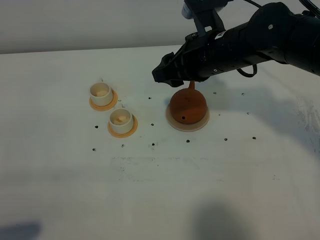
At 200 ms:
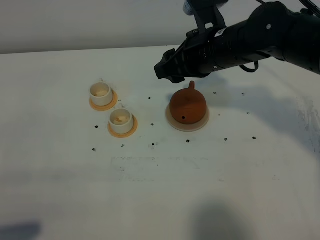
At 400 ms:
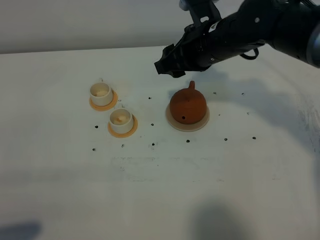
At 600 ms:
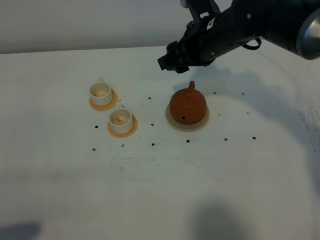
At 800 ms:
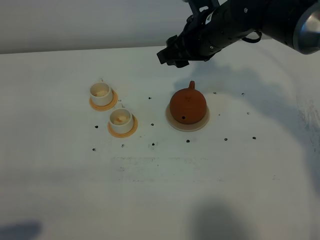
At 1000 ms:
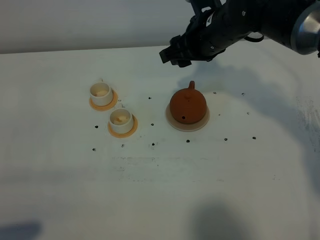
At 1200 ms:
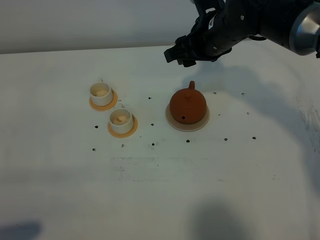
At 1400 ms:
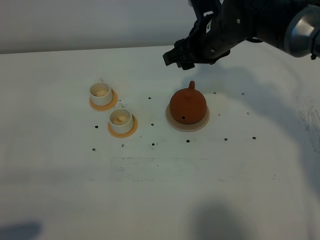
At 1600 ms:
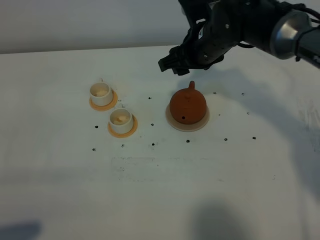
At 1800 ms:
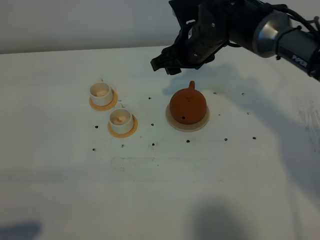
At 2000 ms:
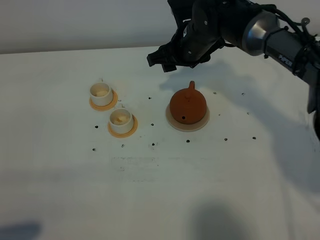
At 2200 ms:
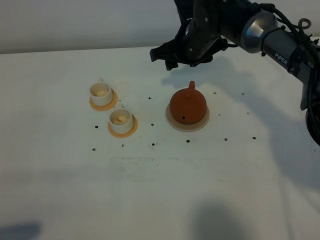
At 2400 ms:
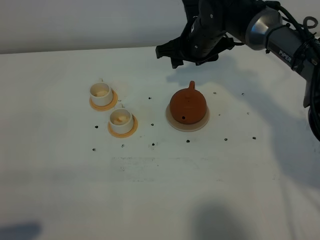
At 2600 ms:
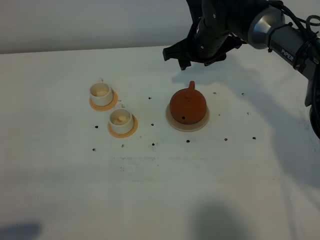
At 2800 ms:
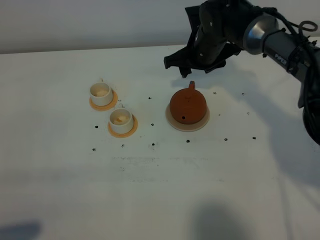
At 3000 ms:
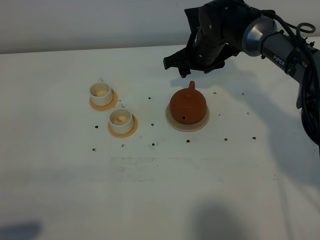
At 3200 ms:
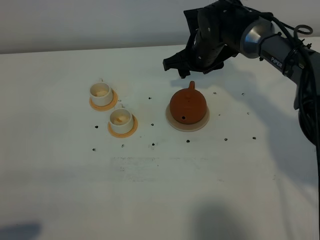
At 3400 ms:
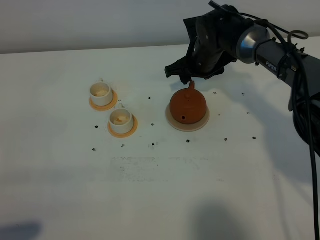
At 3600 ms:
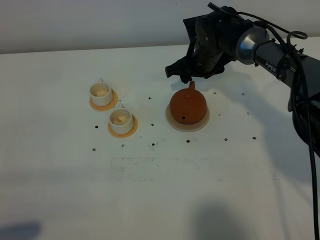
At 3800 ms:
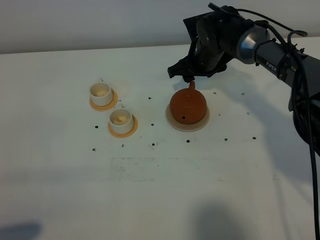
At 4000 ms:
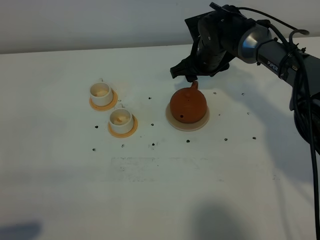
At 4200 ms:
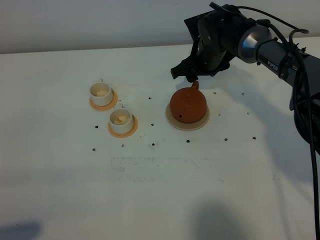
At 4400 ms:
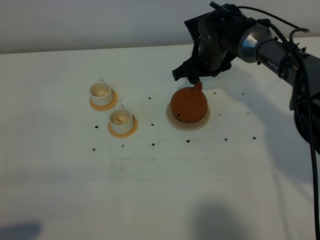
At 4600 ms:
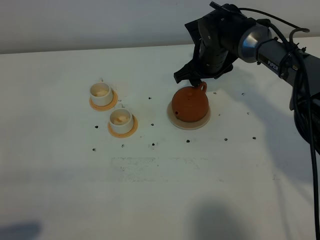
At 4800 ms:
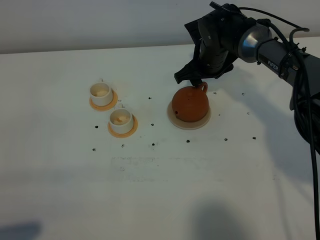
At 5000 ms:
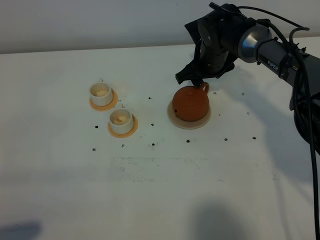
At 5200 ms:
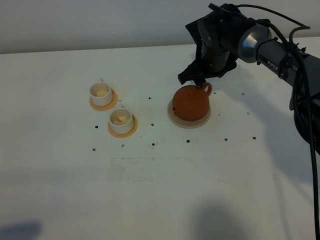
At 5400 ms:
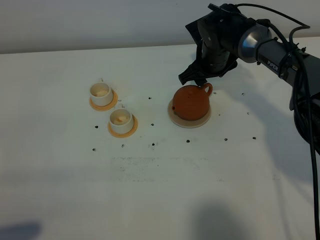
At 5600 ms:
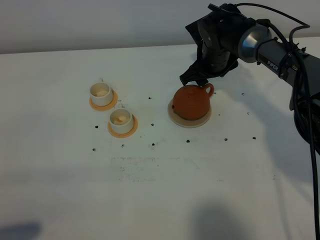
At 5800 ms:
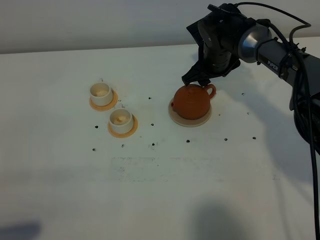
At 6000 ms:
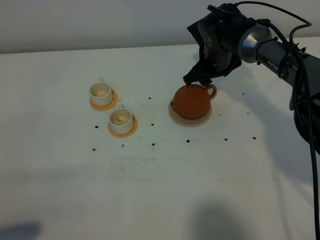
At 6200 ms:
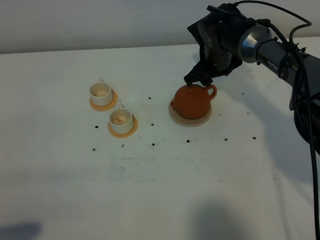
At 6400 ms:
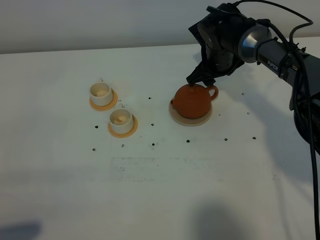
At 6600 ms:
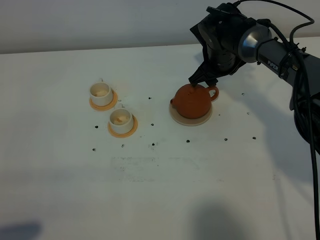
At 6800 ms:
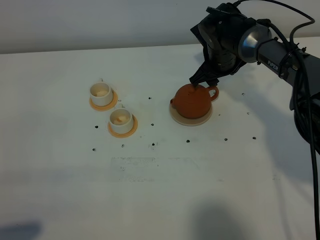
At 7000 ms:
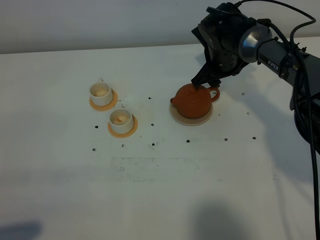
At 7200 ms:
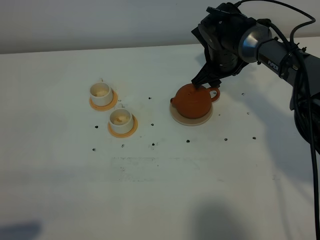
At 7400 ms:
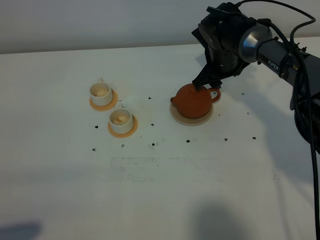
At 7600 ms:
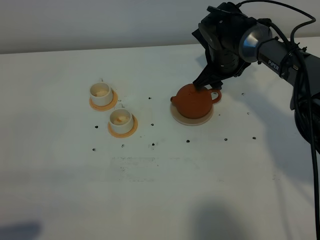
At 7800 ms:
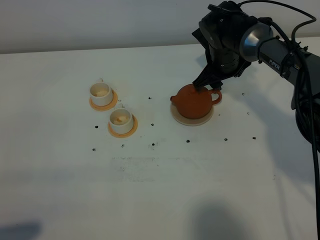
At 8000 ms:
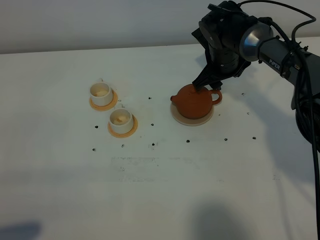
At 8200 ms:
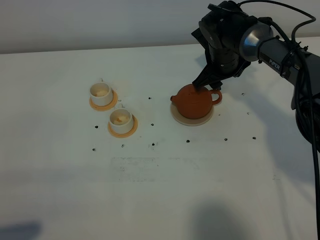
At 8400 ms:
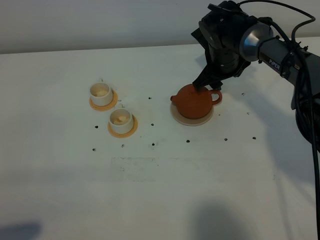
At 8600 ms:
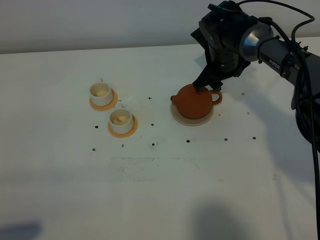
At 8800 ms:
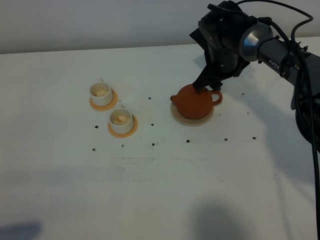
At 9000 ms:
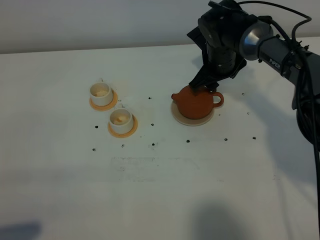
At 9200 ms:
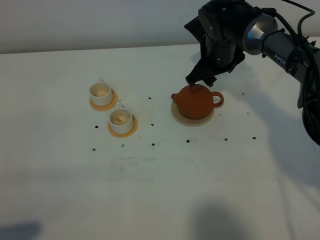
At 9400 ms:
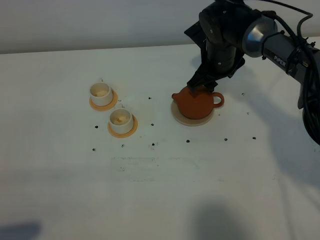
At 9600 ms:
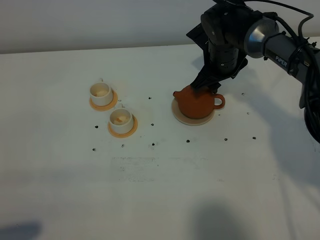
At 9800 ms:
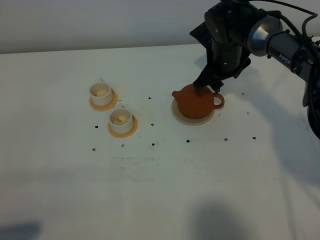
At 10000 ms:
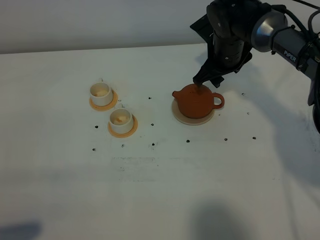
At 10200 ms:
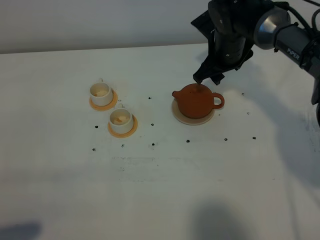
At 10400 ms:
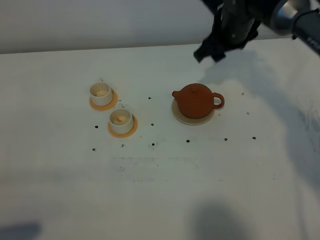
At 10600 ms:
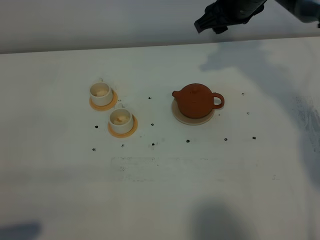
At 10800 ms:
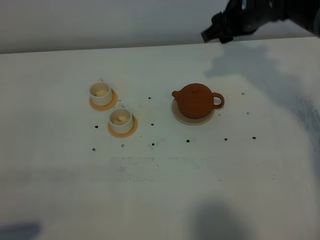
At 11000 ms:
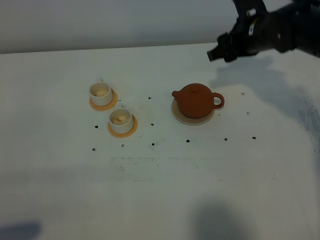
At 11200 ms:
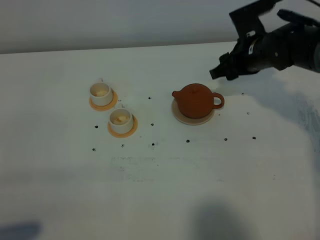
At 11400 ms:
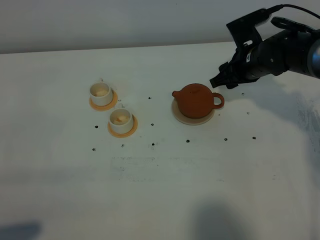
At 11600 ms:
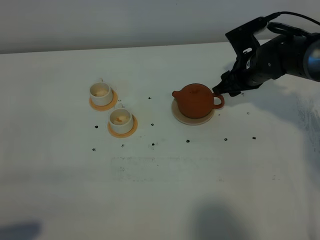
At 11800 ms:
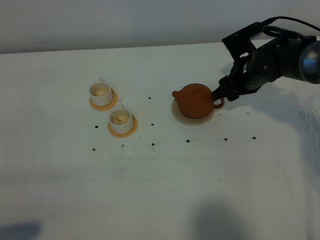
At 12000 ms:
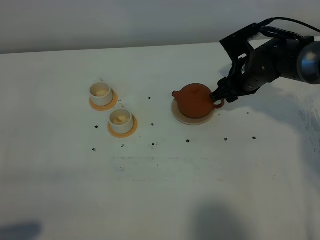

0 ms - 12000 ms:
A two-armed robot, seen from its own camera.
Task of the whole recording: grasp the brown teapot and pour the tea into the two white teacups one by one, put the brown teapot back in its original place.
0 ms - 1600 ms: The right gripper shifts some 5 cm forward.
1600 ms - 3000 ms: The right gripper is displaced forward by approximately 5 cm.
3000 ms - 4400 ms: The grippers stay close to where they were, moving slightly.
4400 ms - 9000 ms: The grippers stay close to where they were, moving slightly.
9000 ms - 10400 ms: The right gripper is displaced upward by roughly 10 cm.
10400 ms - 12000 ms: The right gripper moves downward, some 10 cm.

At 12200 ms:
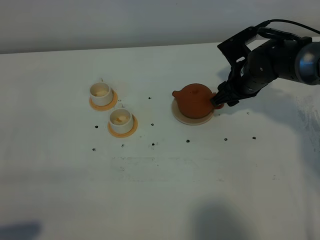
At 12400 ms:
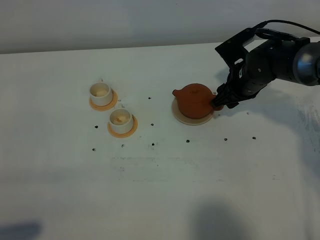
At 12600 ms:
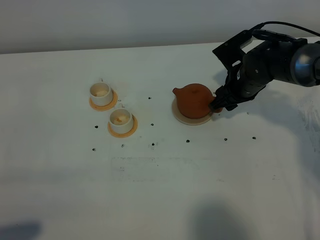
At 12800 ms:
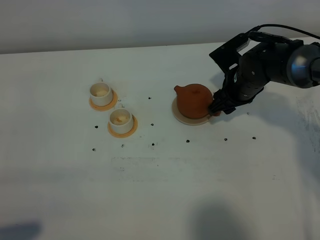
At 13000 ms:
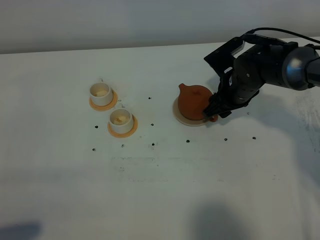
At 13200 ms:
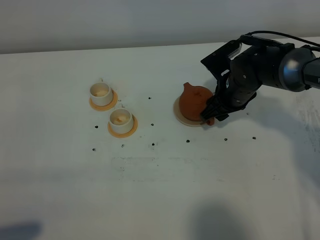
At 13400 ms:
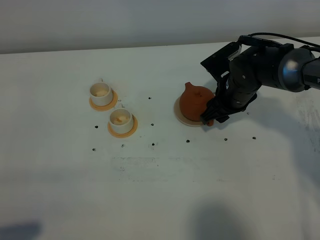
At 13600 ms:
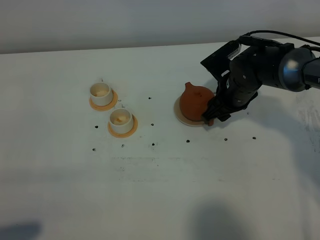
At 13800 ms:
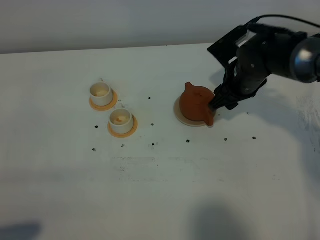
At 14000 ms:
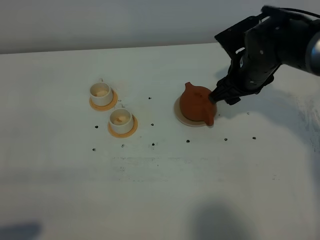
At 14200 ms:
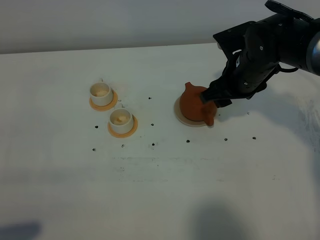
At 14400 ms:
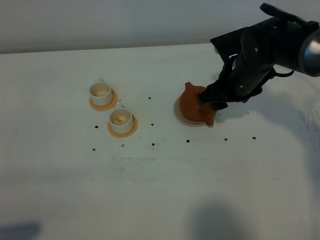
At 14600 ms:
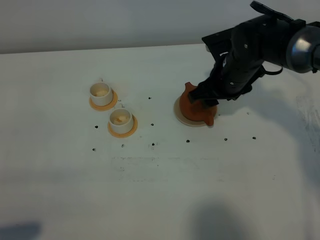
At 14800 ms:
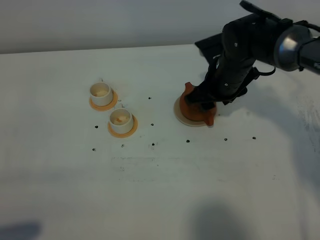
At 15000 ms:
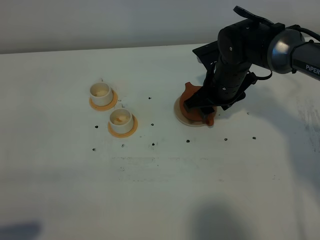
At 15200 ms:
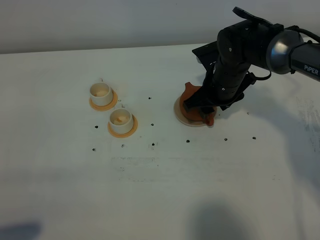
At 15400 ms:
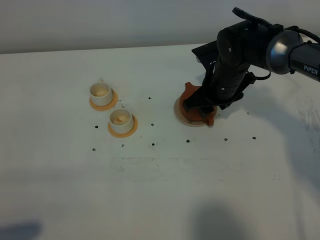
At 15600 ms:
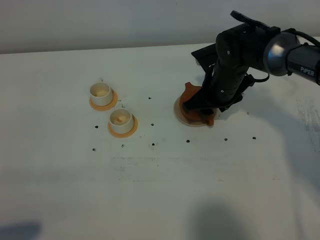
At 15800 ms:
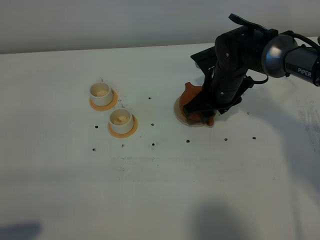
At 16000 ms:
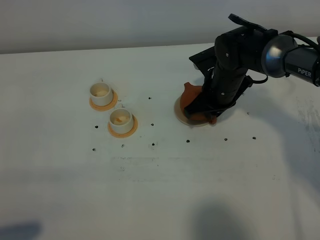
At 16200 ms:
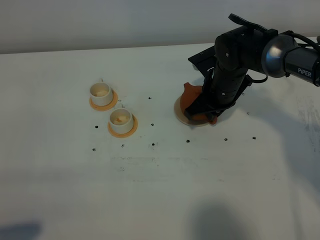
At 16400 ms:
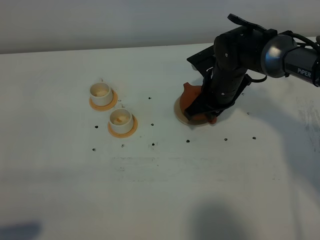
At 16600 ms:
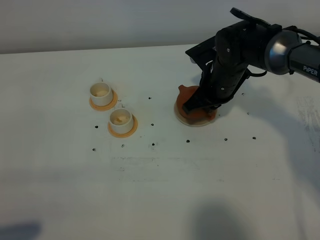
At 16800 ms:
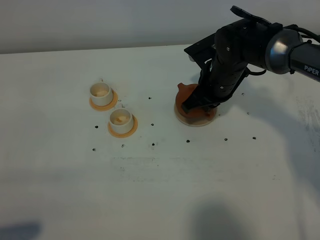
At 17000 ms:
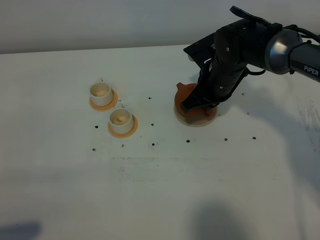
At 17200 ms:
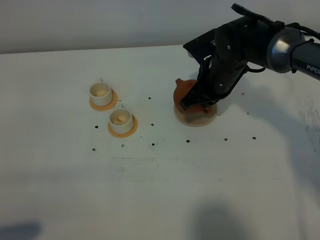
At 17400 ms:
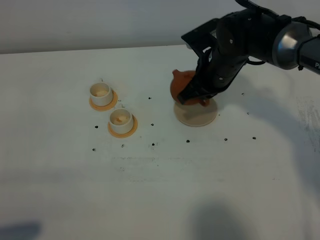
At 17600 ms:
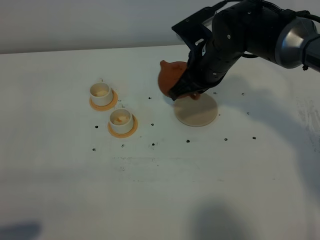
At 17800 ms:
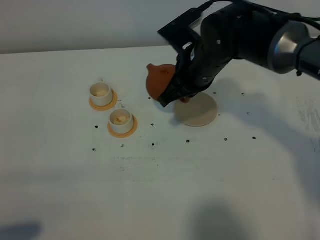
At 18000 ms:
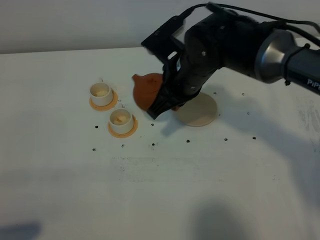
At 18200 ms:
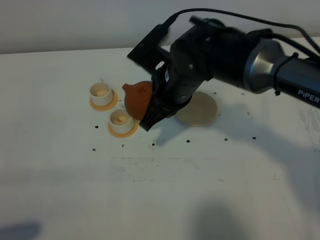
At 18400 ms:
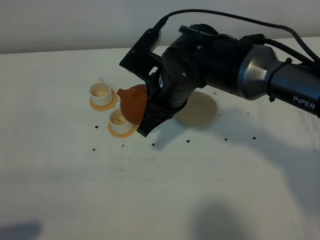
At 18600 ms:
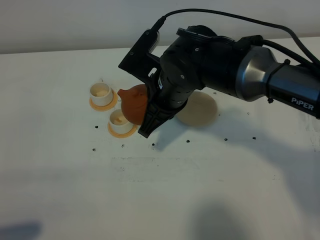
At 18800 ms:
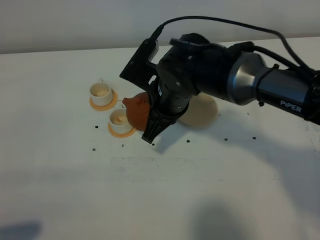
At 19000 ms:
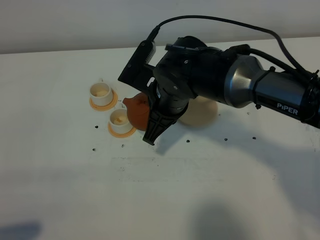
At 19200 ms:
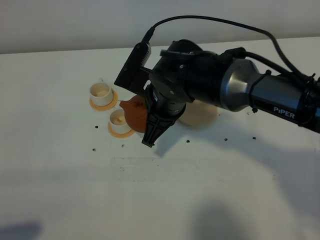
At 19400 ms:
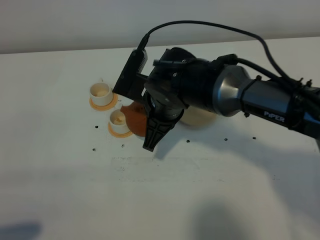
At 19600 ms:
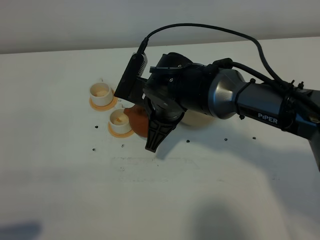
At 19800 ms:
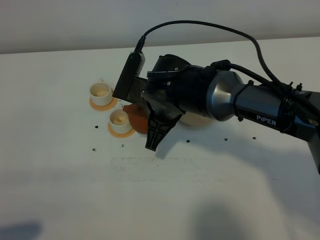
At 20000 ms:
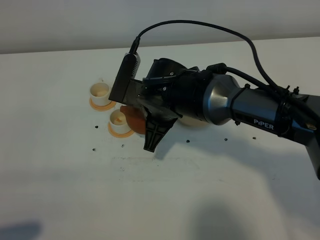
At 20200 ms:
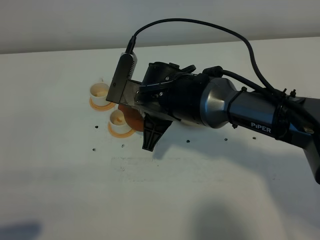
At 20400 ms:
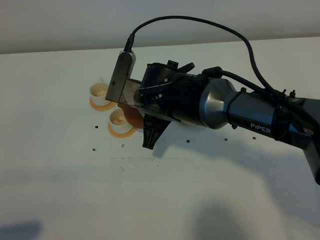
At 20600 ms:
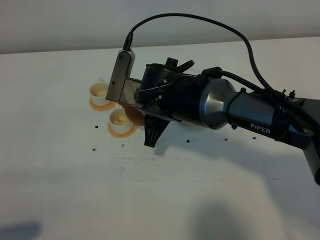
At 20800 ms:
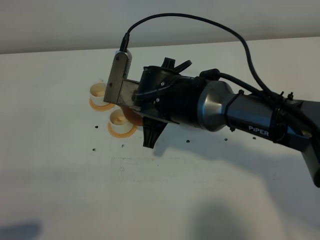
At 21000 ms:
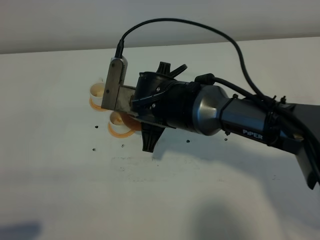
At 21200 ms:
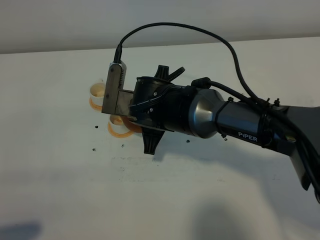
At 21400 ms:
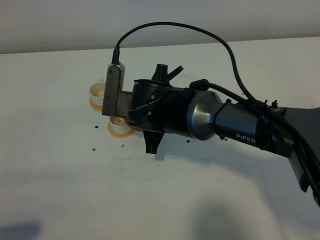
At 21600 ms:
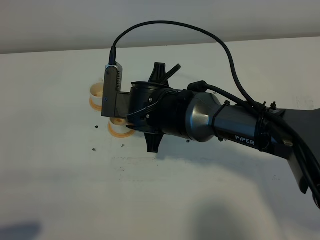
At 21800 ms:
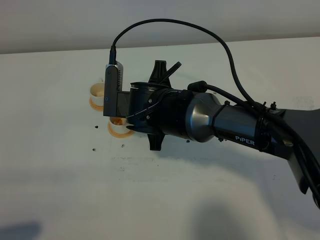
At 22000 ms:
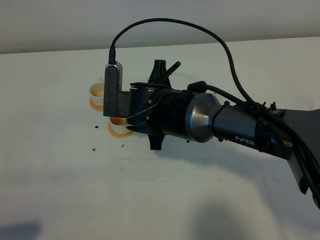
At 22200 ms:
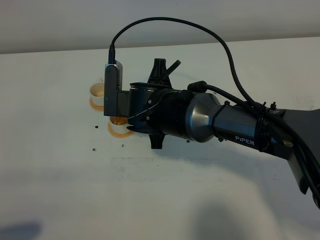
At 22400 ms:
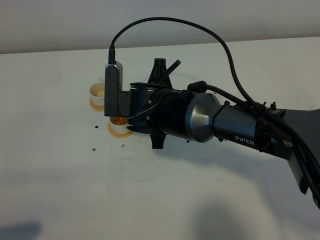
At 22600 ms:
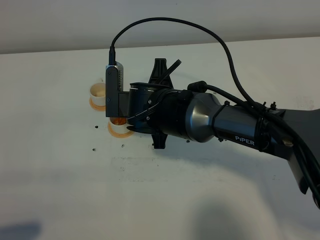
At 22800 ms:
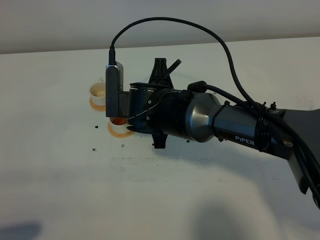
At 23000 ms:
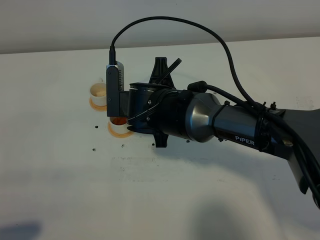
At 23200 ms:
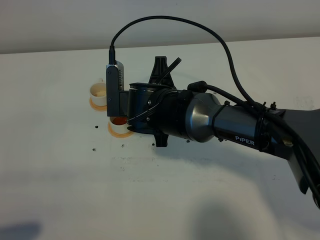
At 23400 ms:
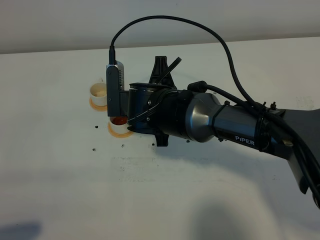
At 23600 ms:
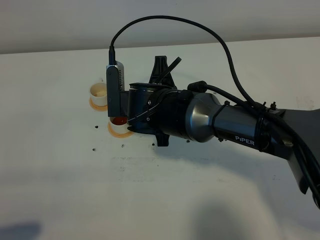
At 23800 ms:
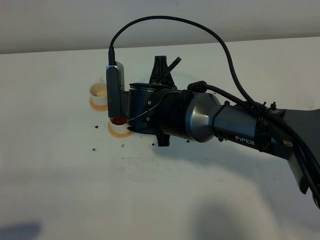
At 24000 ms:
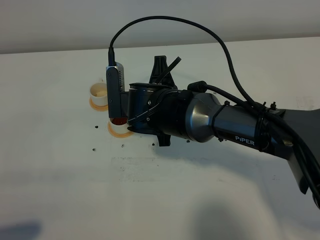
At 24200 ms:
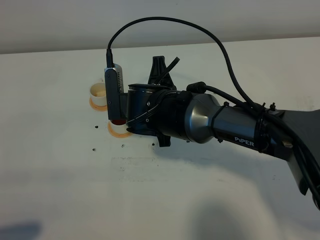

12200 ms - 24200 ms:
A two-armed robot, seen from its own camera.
Task of the whole recording: grasp the brown teapot and pour the tea into the two white teacups one by one, put the brown teapot back in its original place.
Step, 12200 ms - 17000 ms: Pick up the teapot with the right gripper.
12200 ms - 13800 ms: There are only small adjustments of the grippers.
13800 ms - 15200 ms: The grippers stay close to where they were, moving slightly.
15200 ms - 16600 ms: The right gripper closes its fingers.
16600 ms - 18200 ms: The right gripper goes approximately 10 cm to the left, upward and backward.
19800 ms - 21200 ms: There are only small adjustments of the grippers.
21200 ms - 24200 ms: There are only small adjustments of the grippers.
